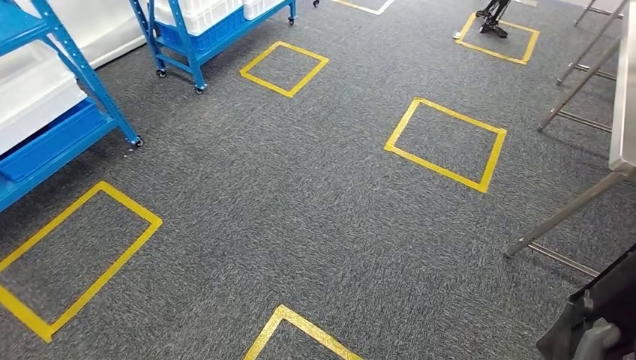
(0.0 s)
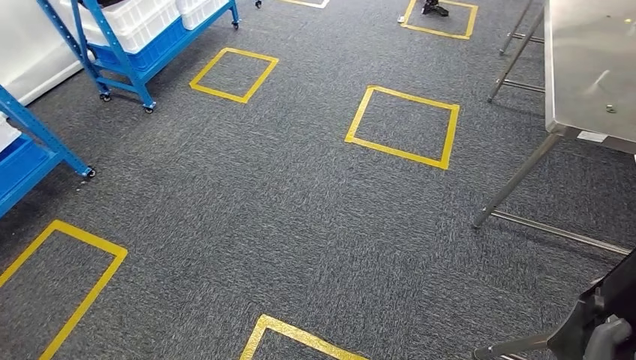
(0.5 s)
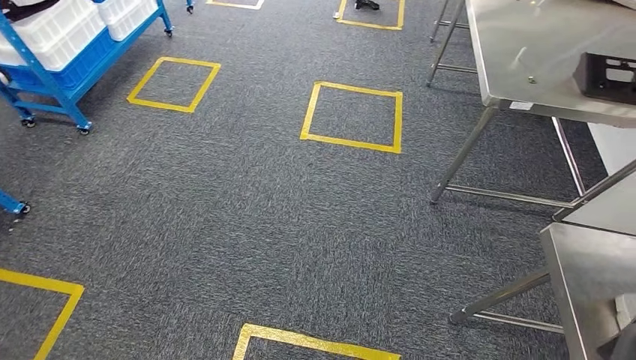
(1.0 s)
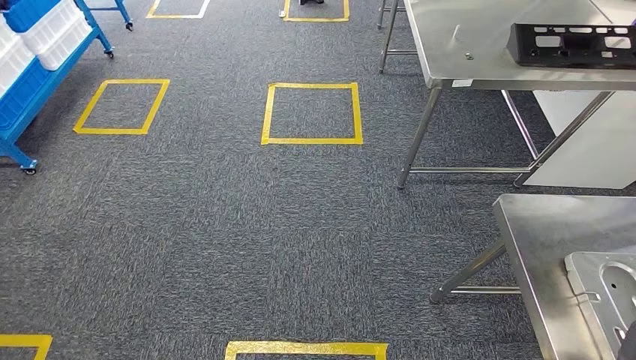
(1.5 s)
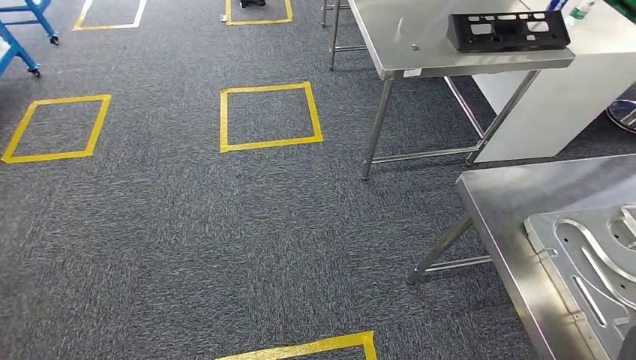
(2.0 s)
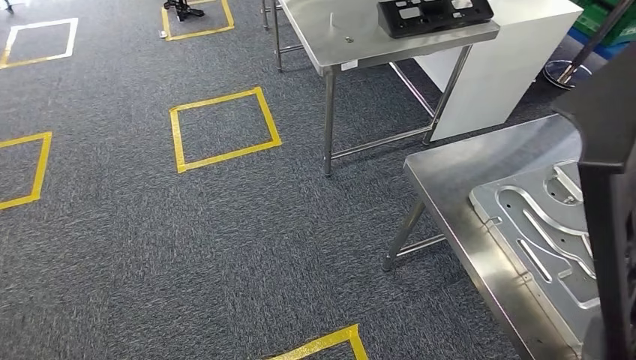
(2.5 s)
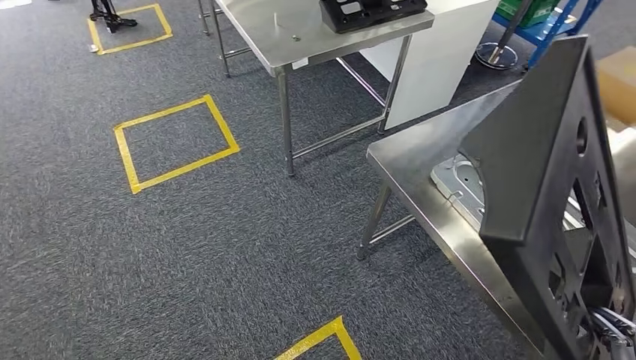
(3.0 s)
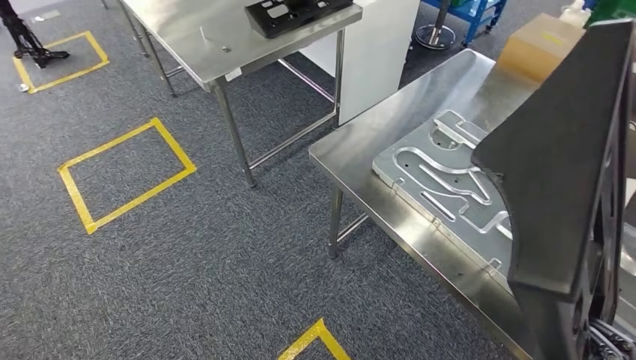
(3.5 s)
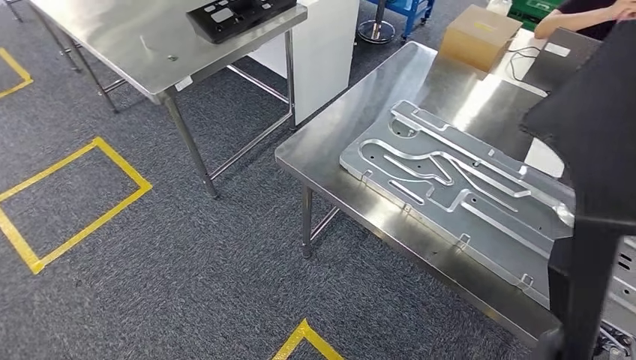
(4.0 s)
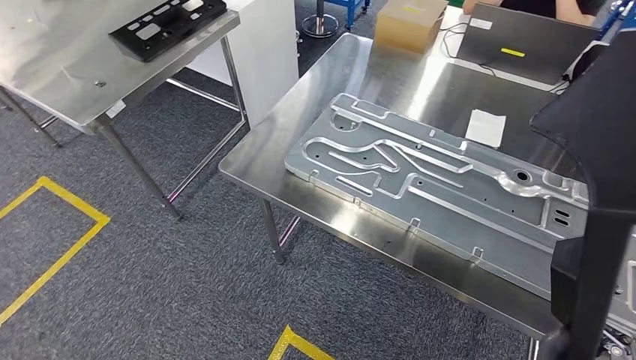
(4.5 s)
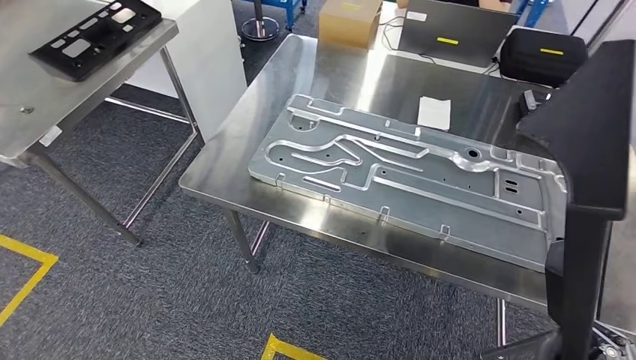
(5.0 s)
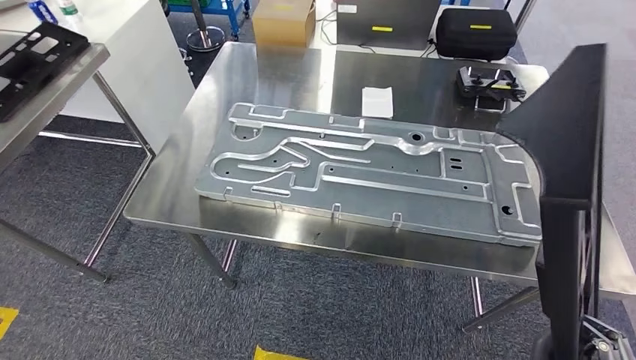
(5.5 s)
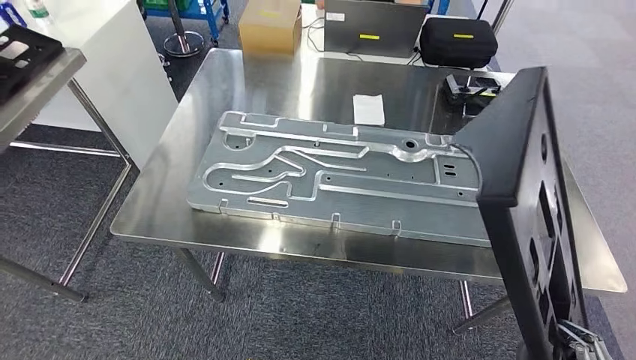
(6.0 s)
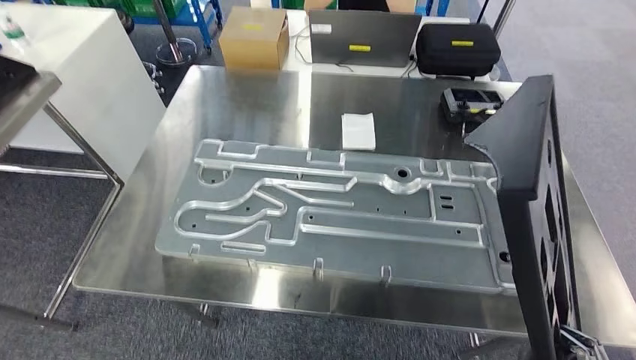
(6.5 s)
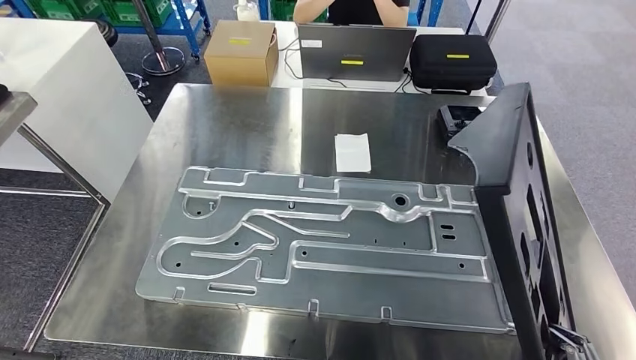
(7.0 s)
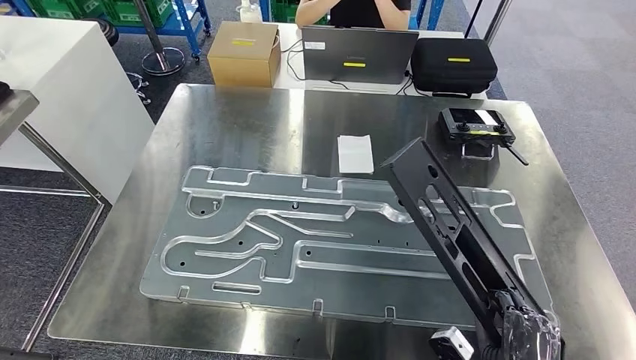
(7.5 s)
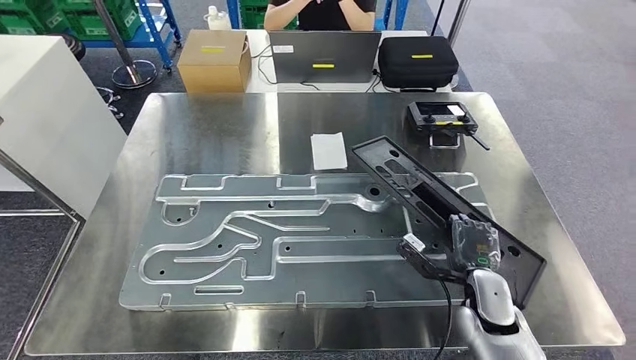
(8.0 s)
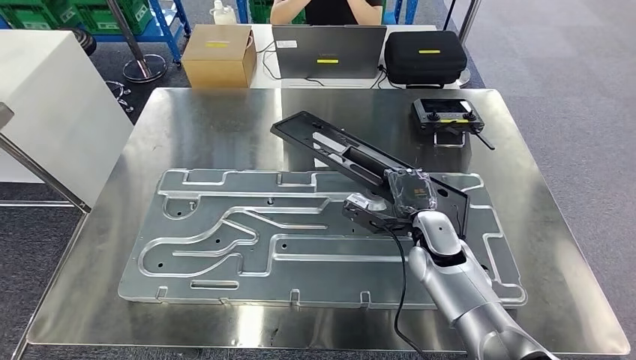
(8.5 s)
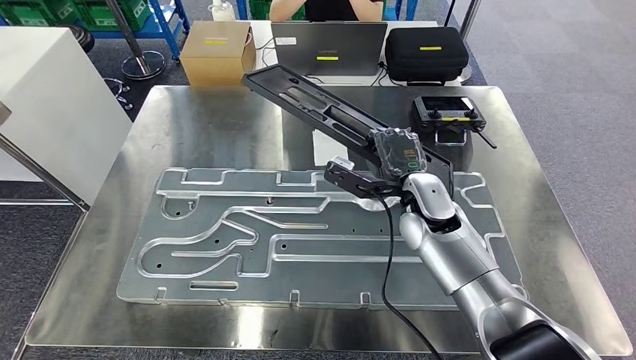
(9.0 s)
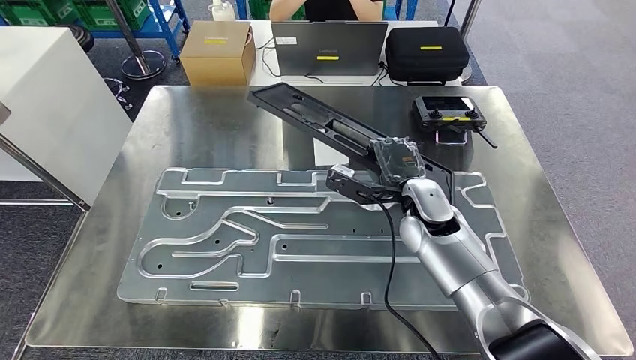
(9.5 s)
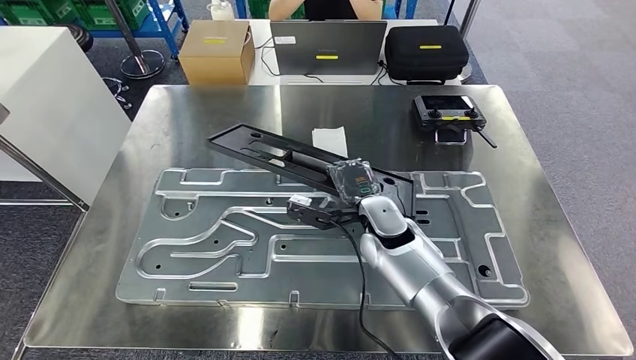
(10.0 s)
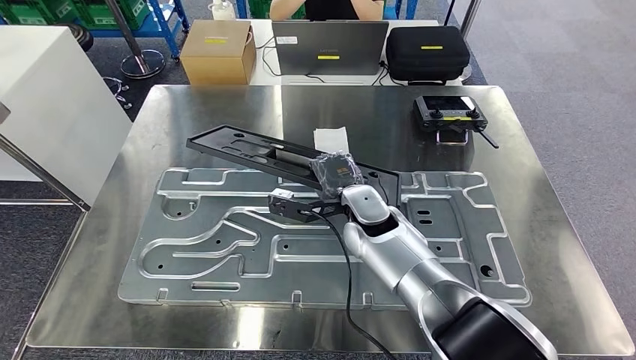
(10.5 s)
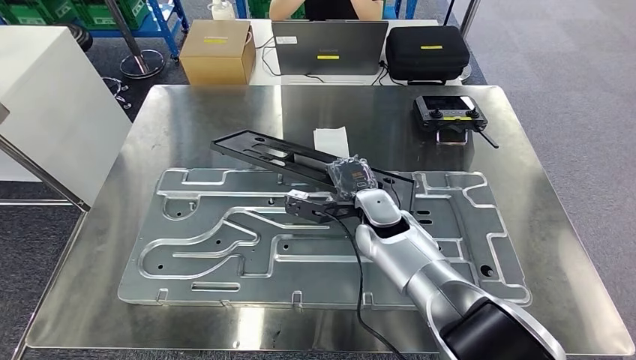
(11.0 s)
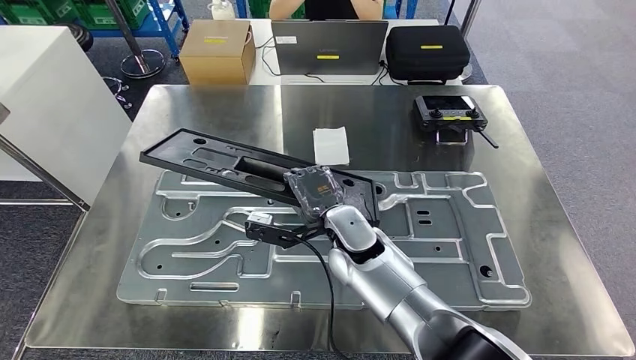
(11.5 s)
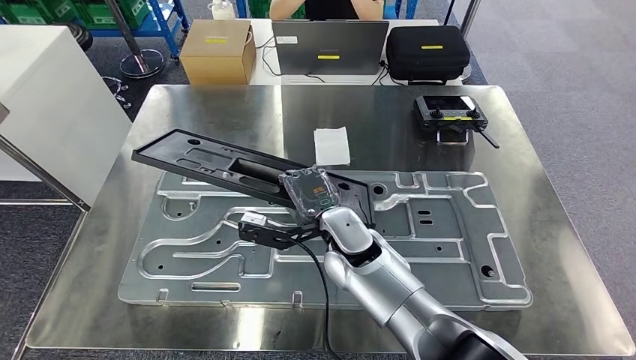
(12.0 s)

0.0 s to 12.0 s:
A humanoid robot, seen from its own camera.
Step, 0.0 to 5.5 s: Move the large material to the workbench.
10.0 to 12.0 s: The right hand heads to the left, covering approximately 5 cm.

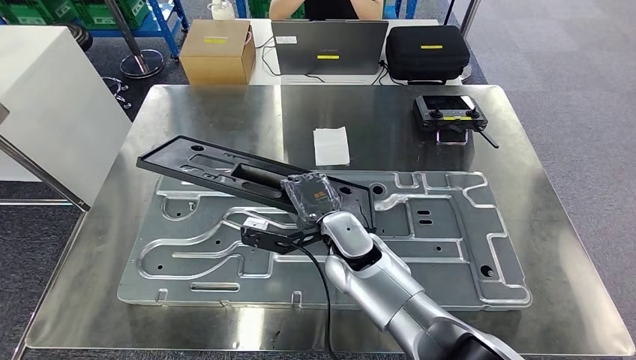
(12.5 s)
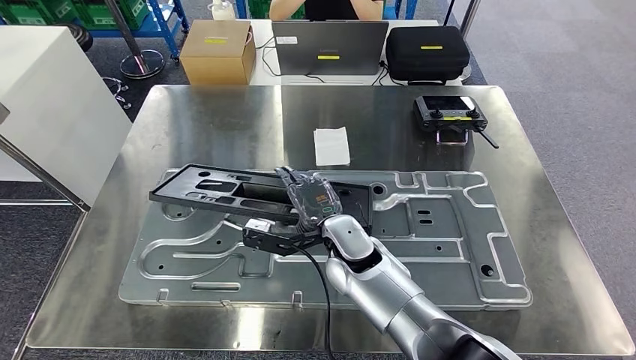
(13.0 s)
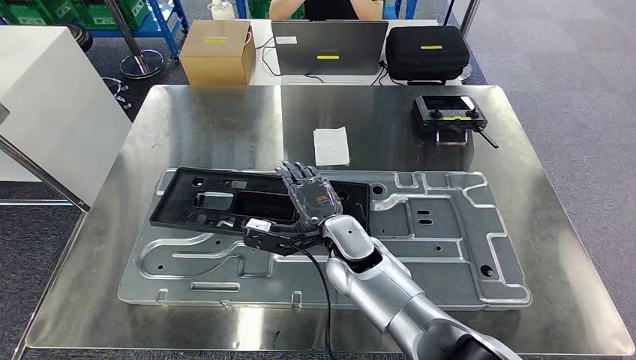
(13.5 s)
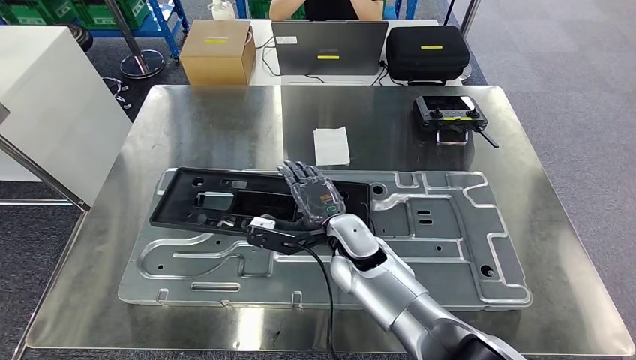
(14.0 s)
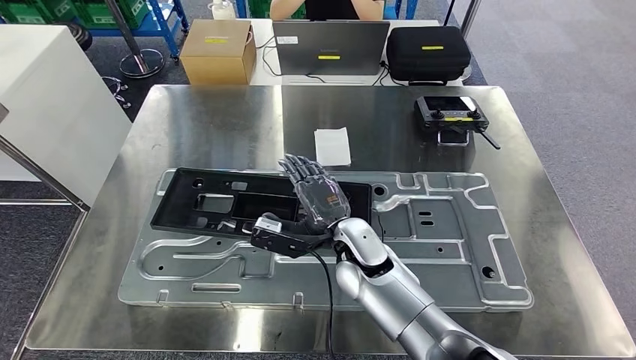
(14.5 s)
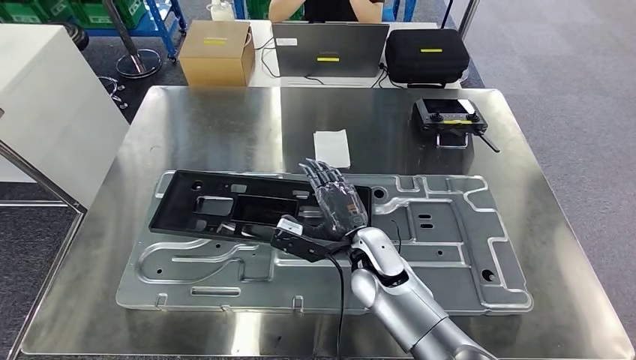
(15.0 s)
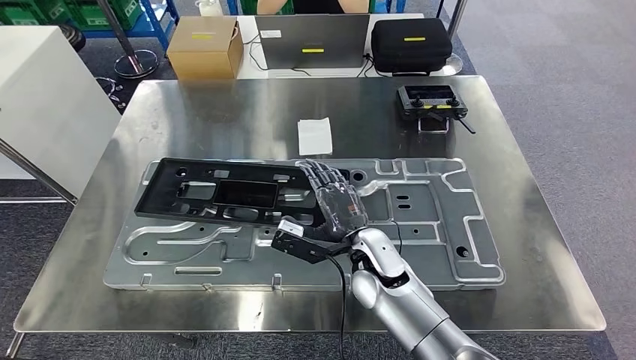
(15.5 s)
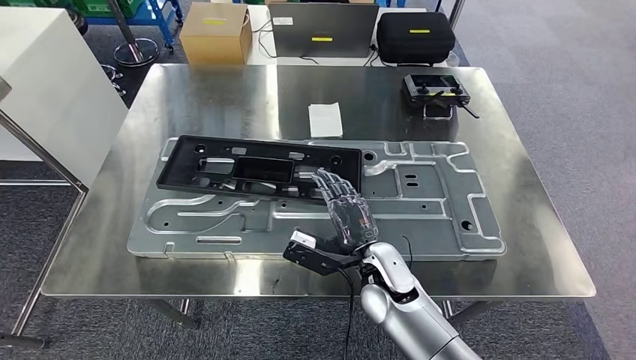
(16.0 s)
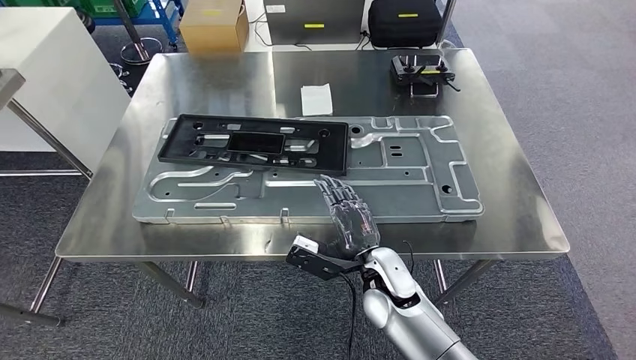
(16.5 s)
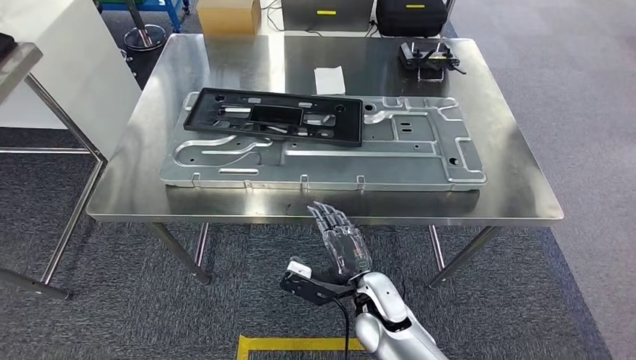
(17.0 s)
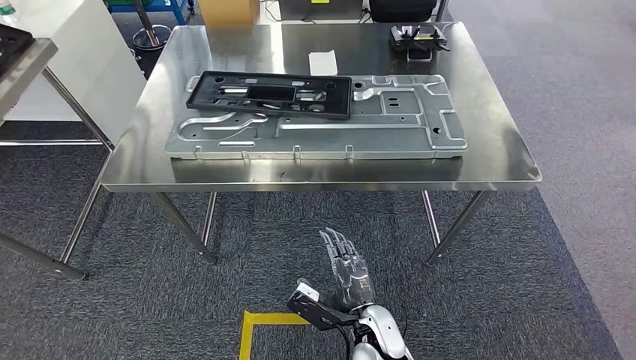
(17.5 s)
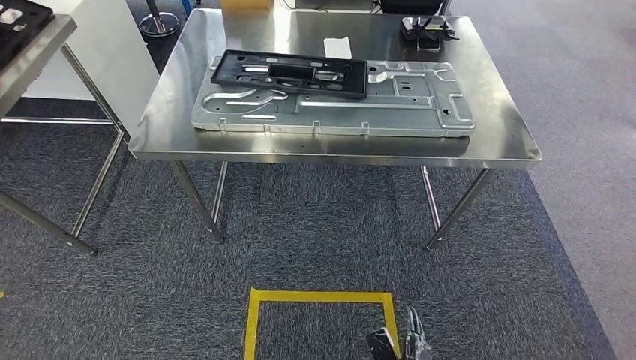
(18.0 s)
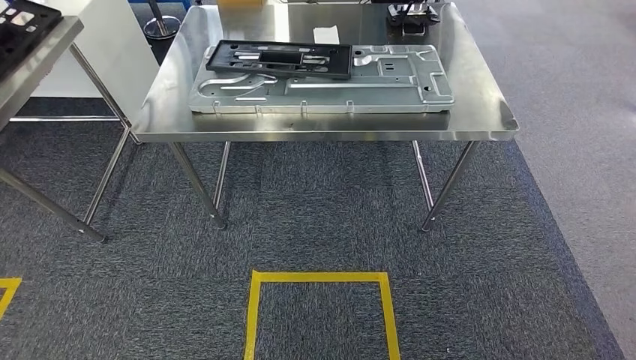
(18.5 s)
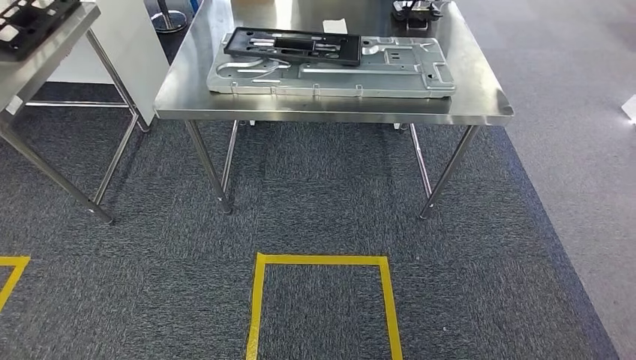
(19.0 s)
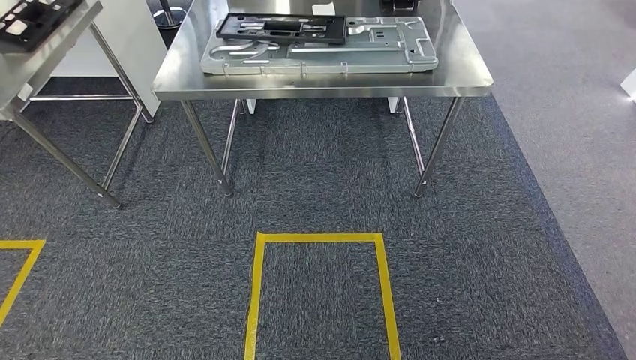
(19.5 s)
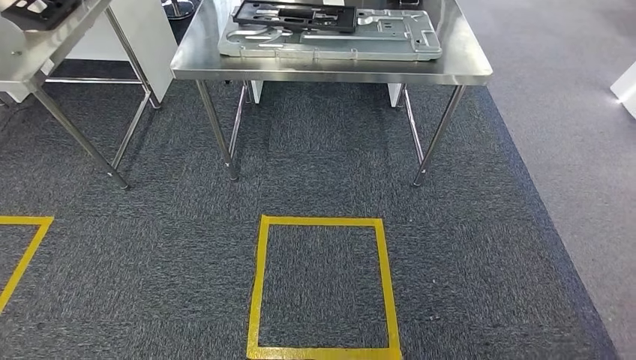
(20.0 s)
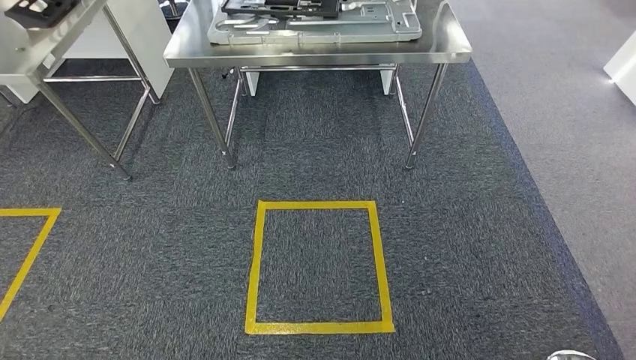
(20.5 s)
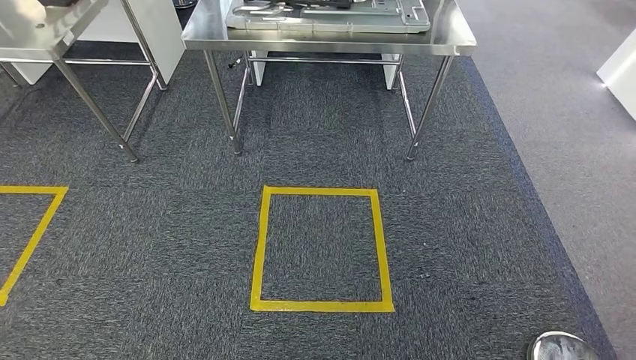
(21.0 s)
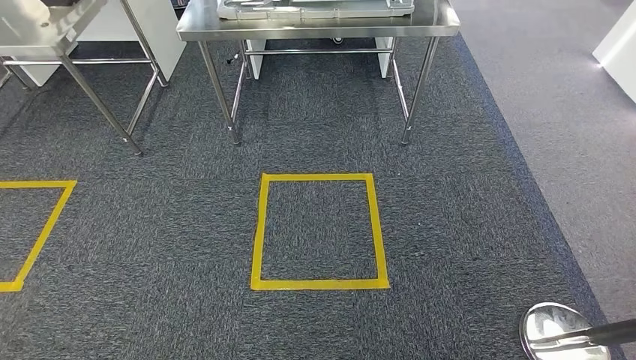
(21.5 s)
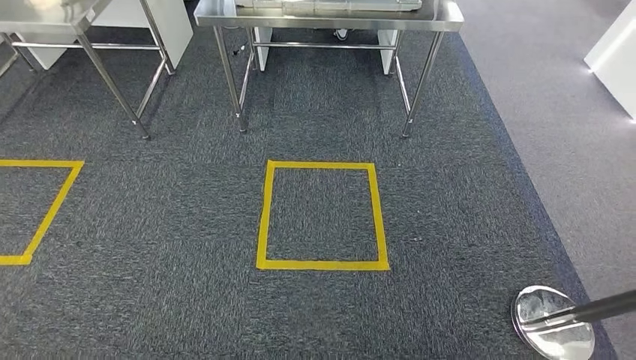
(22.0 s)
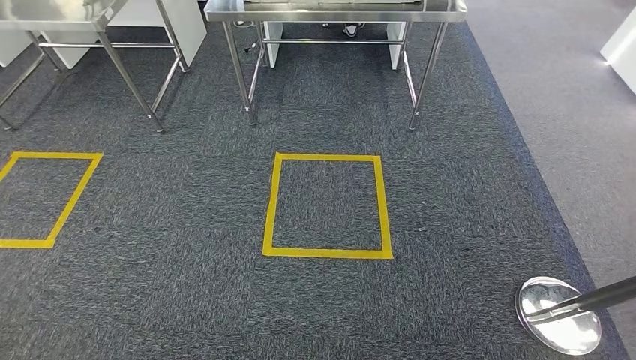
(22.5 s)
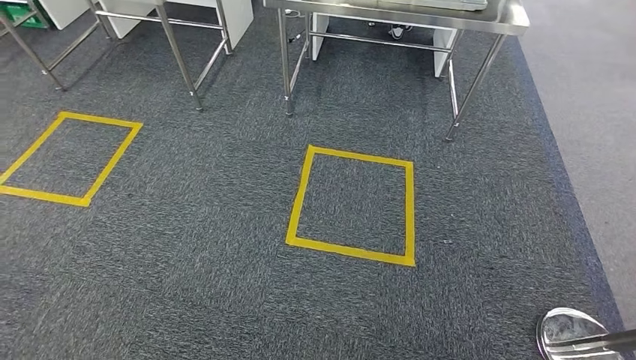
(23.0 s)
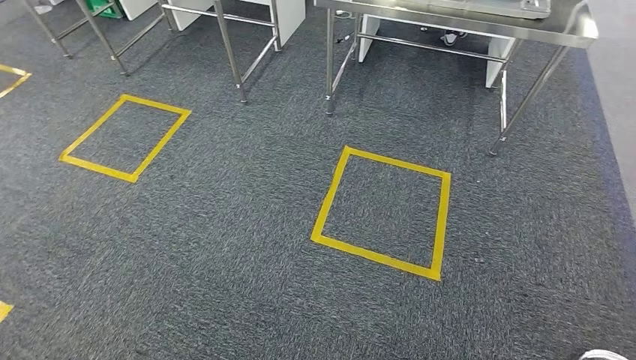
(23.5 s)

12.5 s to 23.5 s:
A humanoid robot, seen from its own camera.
Step, 12.5 to 14.5 s: Insert the large material into the corresponding slot on the workbench.
12.5 to 14.5 s: The hands make only small movements.
